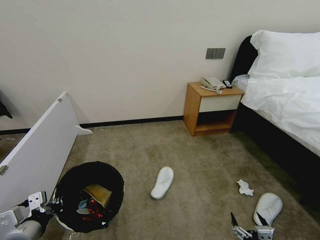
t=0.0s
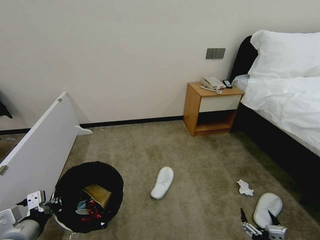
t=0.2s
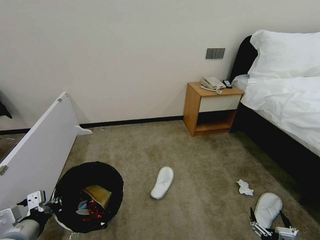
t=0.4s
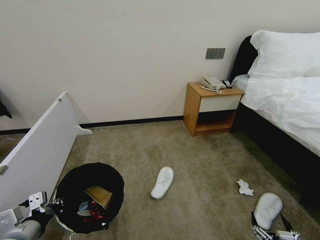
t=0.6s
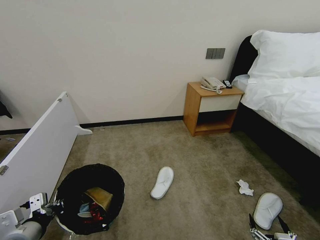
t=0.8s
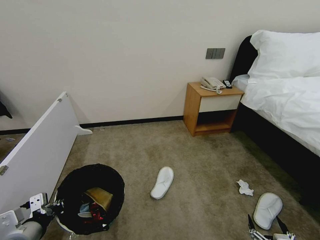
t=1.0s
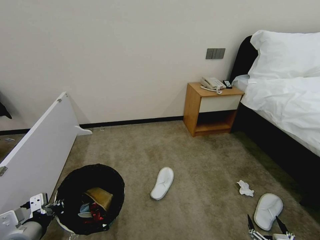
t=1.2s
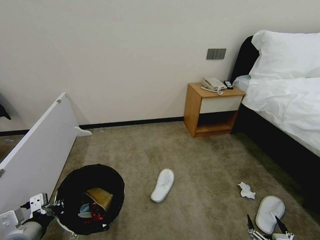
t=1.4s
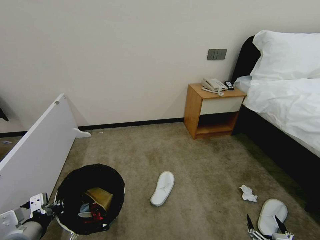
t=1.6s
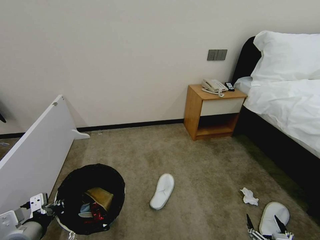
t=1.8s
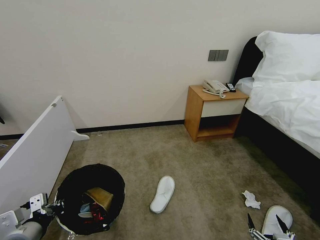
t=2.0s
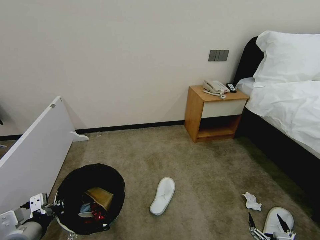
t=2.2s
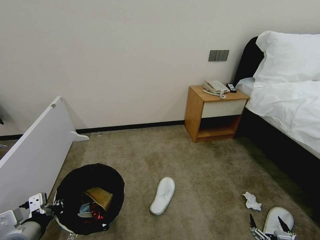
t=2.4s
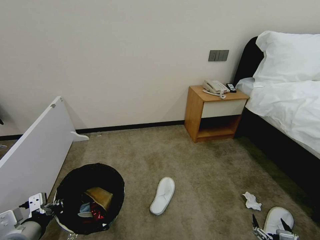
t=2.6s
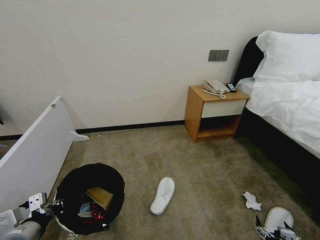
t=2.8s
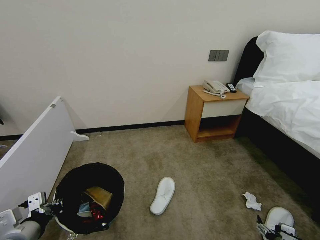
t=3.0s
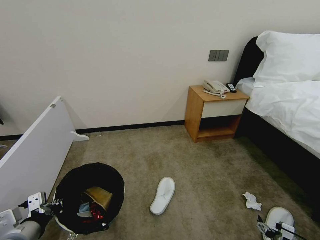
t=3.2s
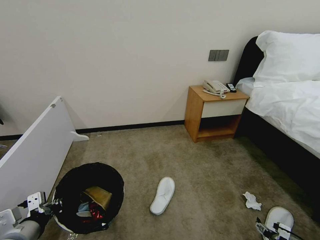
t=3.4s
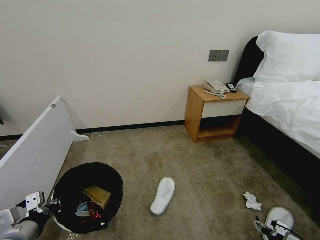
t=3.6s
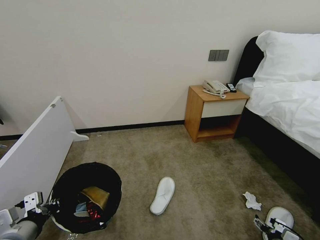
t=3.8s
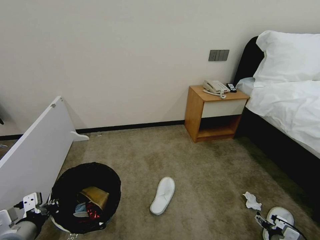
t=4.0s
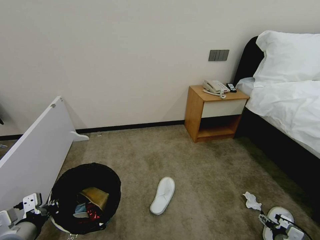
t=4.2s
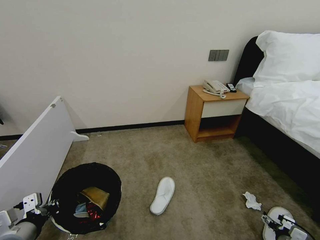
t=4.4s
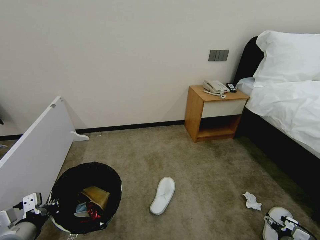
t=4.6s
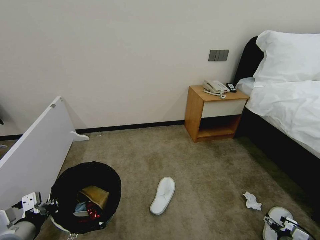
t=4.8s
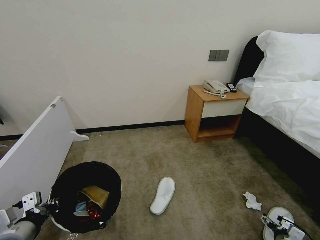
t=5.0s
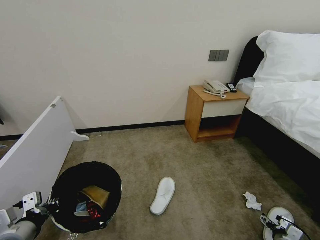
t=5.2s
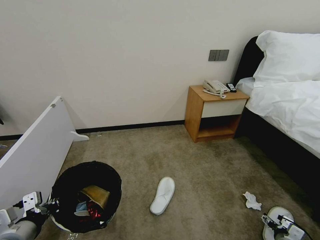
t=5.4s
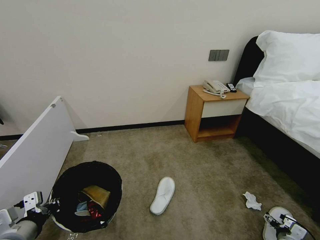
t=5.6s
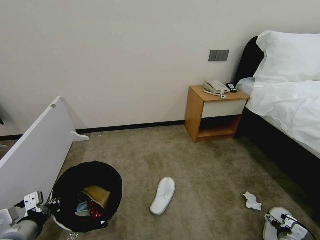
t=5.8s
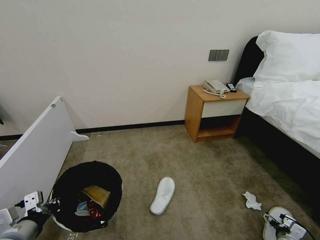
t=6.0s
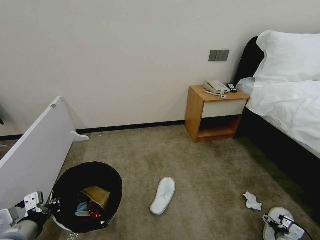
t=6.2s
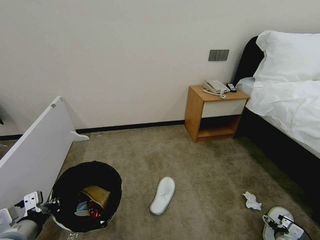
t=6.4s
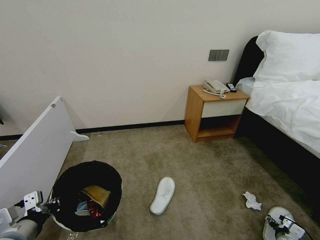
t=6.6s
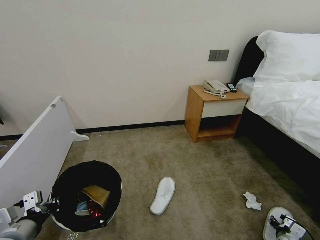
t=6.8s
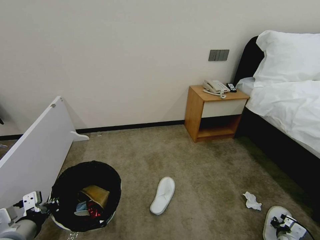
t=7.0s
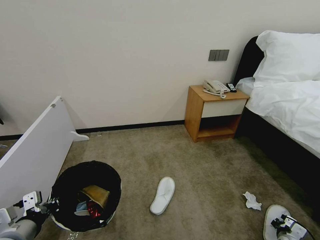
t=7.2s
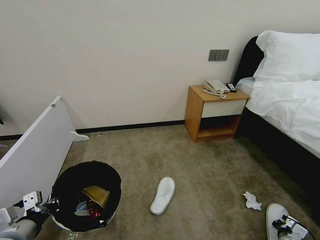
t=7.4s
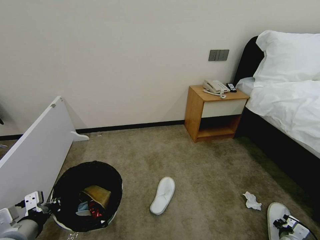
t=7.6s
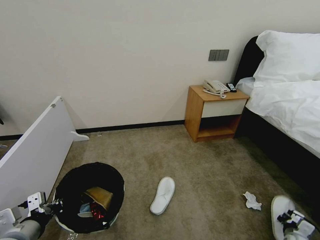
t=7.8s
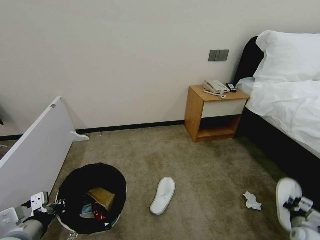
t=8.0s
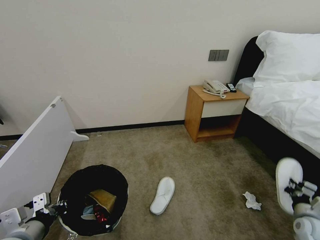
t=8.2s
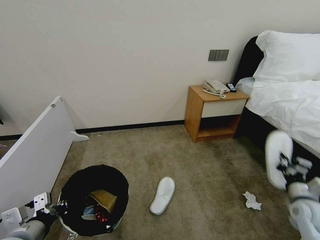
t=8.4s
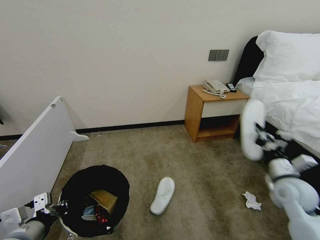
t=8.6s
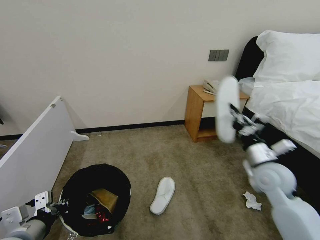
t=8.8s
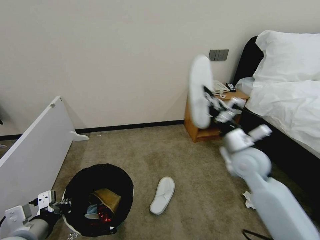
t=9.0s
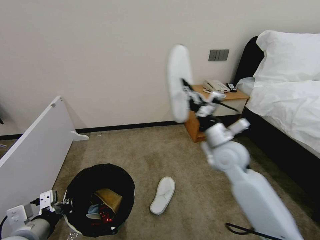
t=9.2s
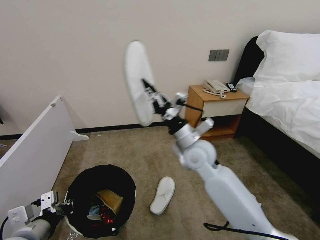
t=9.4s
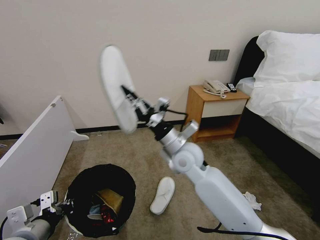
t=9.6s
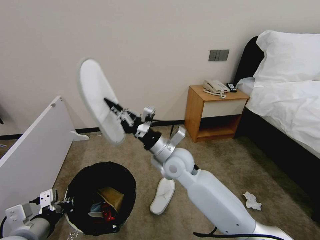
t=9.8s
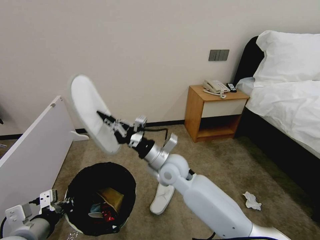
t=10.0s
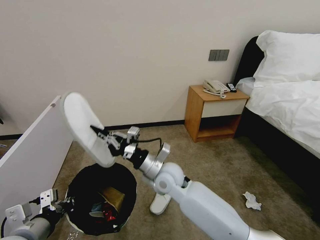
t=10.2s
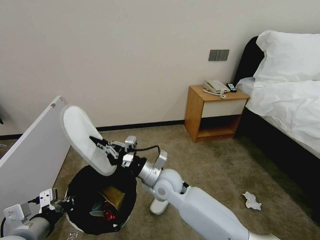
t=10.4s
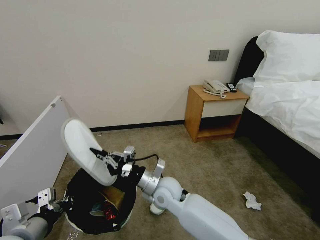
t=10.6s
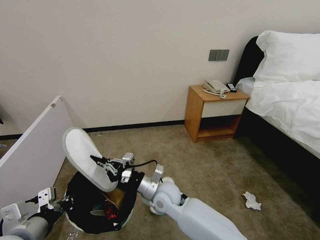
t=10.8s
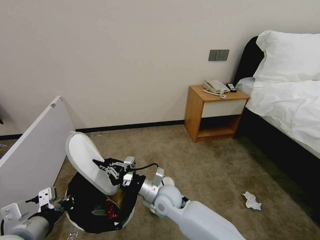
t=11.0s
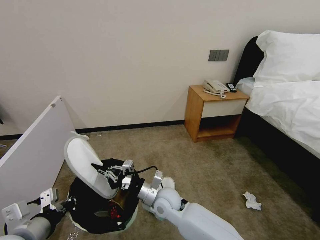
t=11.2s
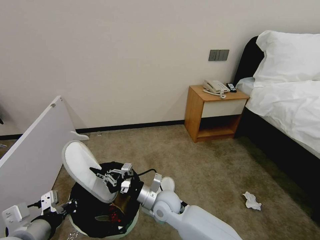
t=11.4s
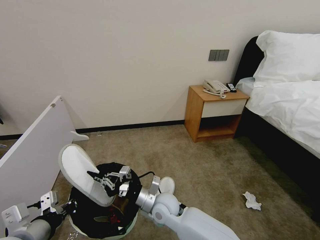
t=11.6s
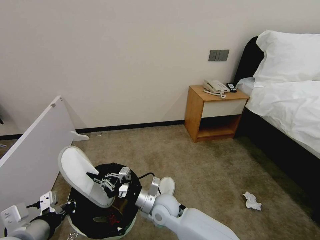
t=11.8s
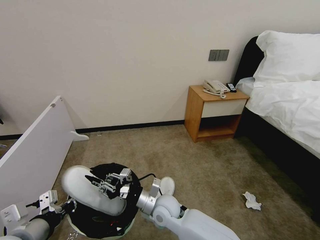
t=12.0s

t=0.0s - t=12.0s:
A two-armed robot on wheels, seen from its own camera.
Task of the whole recording: Pick up the trash bin, then pick up the garbage from the floor and place it into the trash bin.
t=0.0s - t=1.6s: The right gripper ends up approximately 5 cm from where it was.
t=1.6s - t=3.0s: The right gripper heads forward, covering about 5 cm.
t=3.0s - t=4.4s: The right gripper heads forward, to the right and downward, covering roughly 15 cm.
t=4.4s - t=6.0s: The right gripper shifts by approximately 5 cm.
t=6.0s - t=7.6s: The right gripper closes.
t=7.6s - t=9.0s: The right gripper shifts some 50 cm upward and to the left.
t=9.0s - t=10.4s: The right gripper moves to the left and downward, roughly 25 cm.
t=10.4s - t=12.0s: The right gripper moves downward, roughly 10 cm.

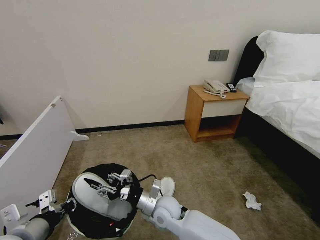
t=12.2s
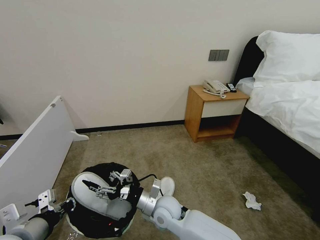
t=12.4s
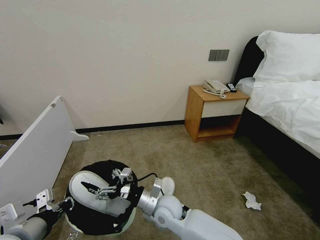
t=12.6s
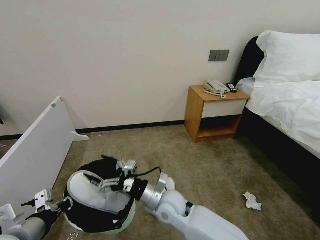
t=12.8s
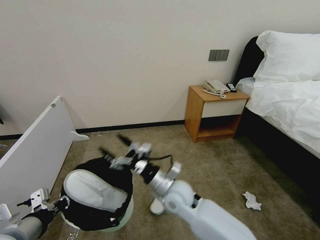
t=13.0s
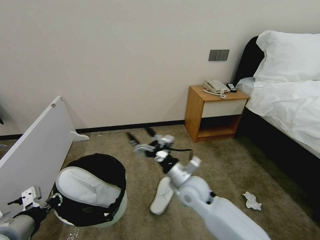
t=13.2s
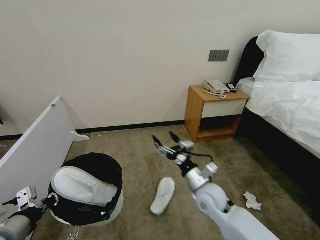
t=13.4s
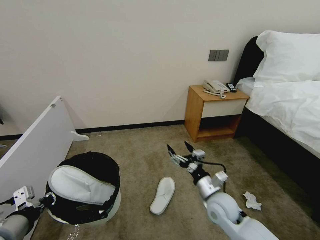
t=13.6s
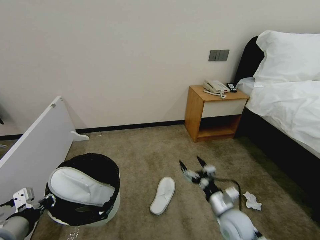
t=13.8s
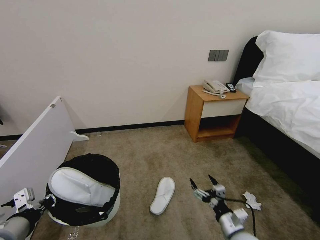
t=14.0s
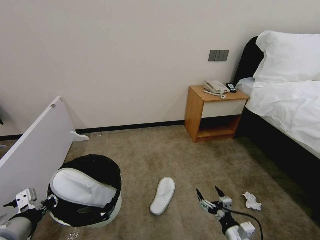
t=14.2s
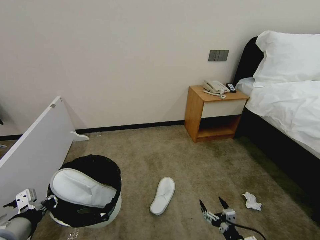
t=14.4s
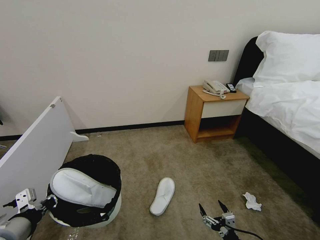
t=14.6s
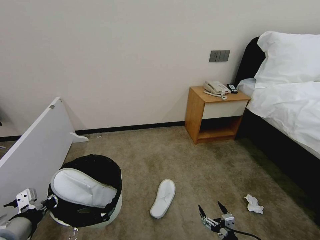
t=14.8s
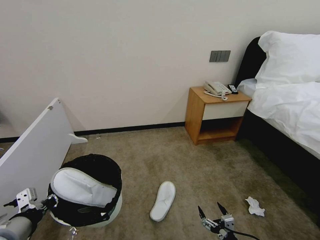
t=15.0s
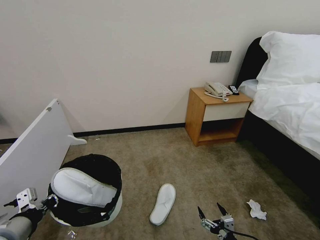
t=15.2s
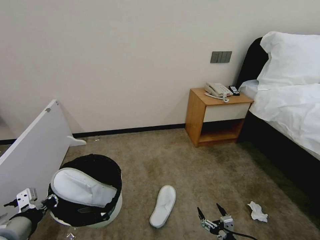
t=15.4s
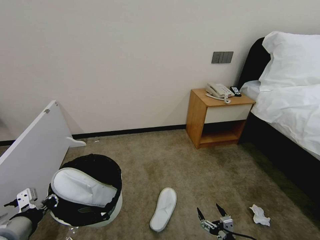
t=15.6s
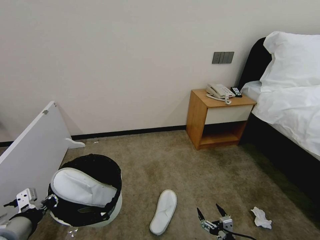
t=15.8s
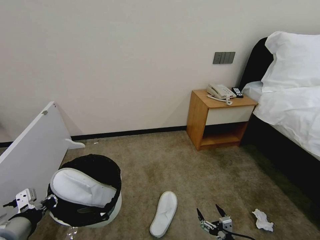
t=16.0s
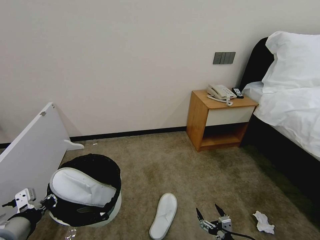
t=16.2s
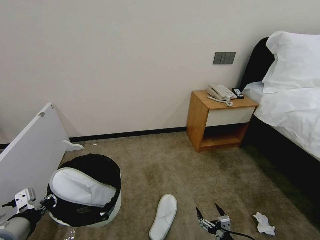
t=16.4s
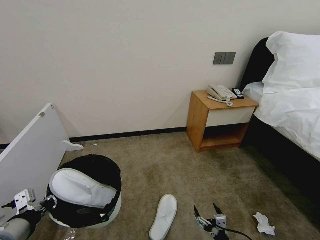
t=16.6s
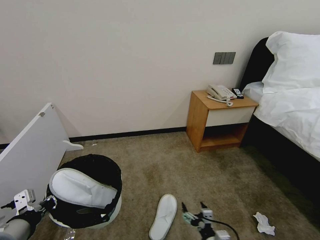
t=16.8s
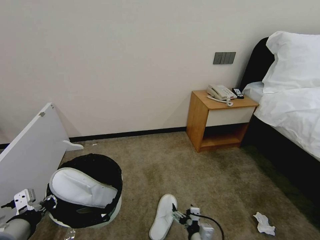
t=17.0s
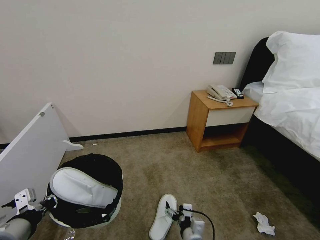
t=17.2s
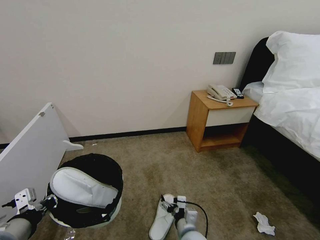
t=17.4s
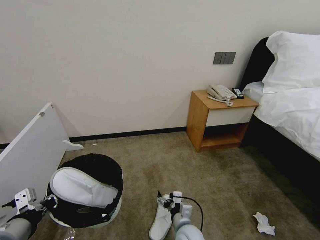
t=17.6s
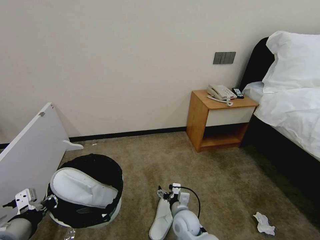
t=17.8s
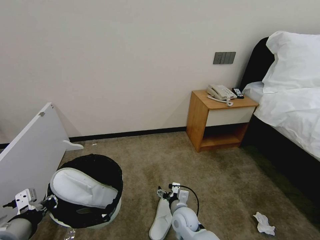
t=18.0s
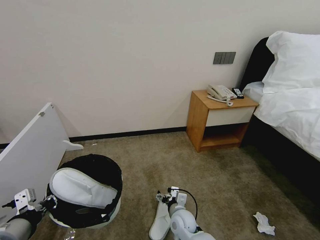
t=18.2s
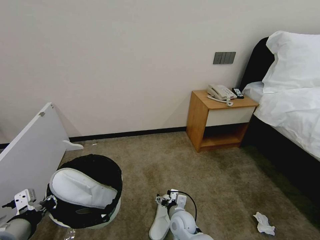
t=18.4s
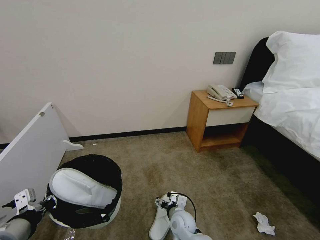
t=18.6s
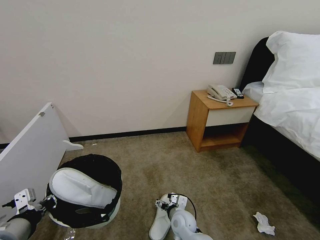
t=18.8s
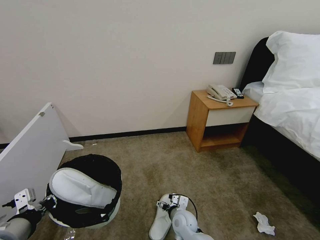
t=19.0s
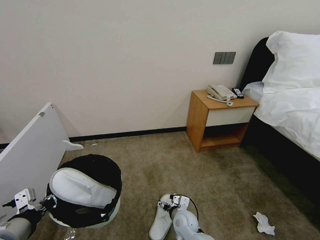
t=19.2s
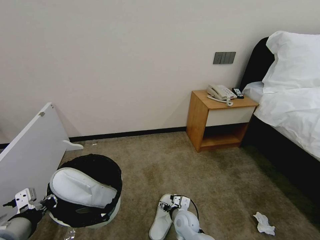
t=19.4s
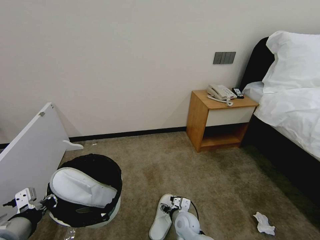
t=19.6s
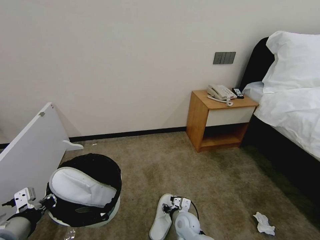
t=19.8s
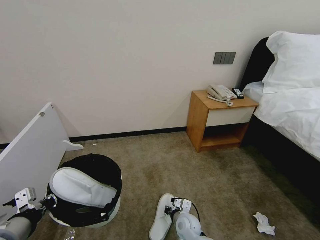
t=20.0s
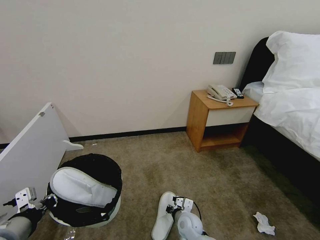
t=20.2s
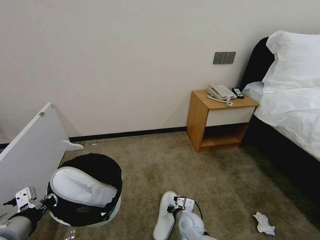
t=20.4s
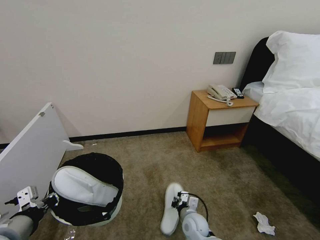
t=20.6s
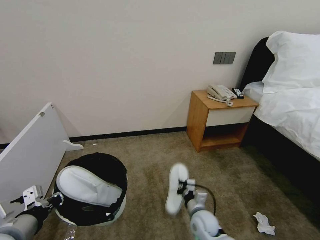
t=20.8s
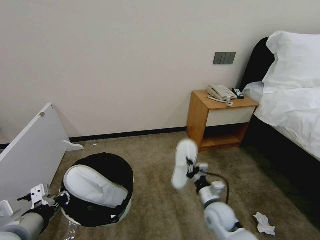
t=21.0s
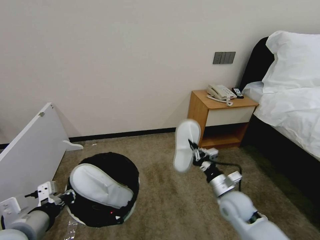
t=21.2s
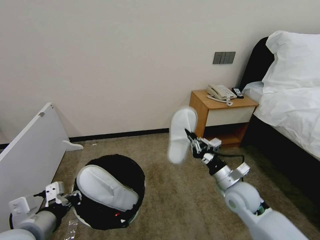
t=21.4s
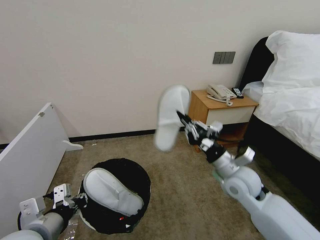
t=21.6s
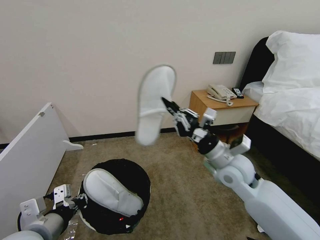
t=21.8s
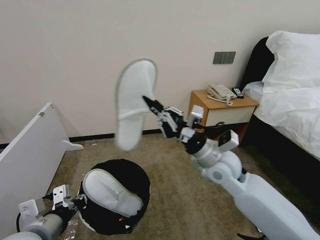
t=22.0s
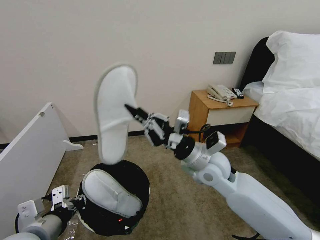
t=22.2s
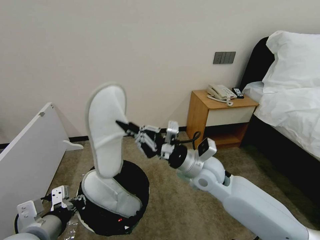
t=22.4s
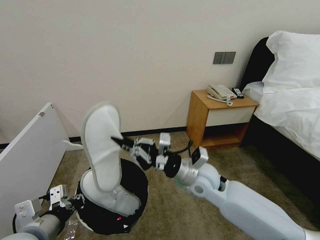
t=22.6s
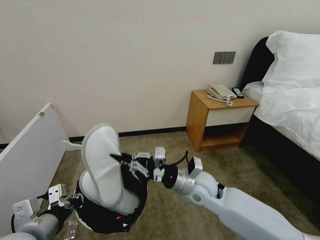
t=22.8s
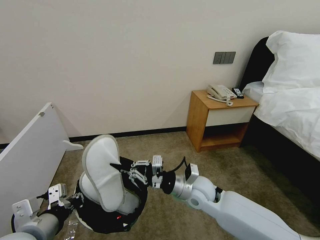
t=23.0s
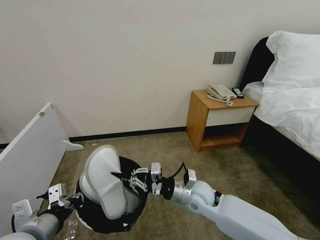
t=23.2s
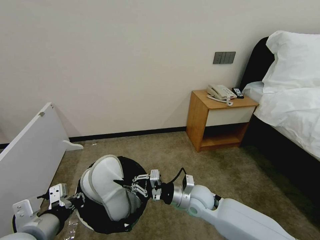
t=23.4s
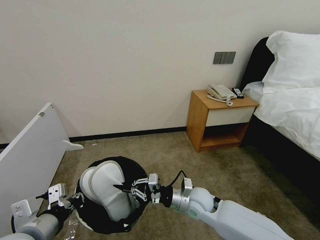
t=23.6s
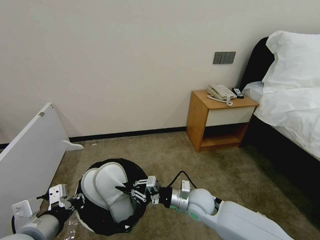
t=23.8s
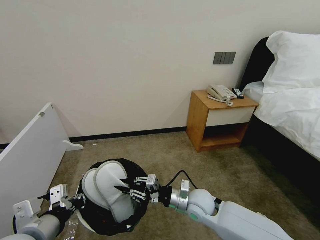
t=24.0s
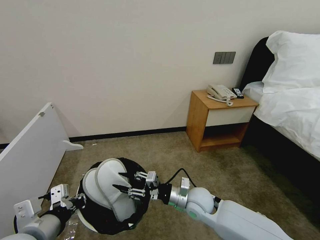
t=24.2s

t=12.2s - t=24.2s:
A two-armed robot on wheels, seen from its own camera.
Task of the whole recording: Pick up the trash bin, then pick up the garbage from the floor and place it into the trash bin.
t=12.2s - t=13.8s: The right gripper heads to the right, covering roughly 25 cm, and opens its fingers.
t=13.8s - t=15.2s: The right gripper shifts some 15 cm backward and downward.
t=15.2s - t=16.6s: There are only small adjustments of the grippers.
t=16.6s - t=18.2s: The right gripper is displaced forward and to the left by approximately 25 cm.
t=18.2s - t=19.8s: The right gripper closes up.
t=19.8s - t=21.2s: The right gripper is displaced upward and to the right by approximately 20 cm, and closes.
t=21.2s - t=22.6s: The right gripper goes some 15 cm to the left and upward.
t=22.6s - t=24.2s: The right gripper is displaced downward by about 10 cm, and opens up.
